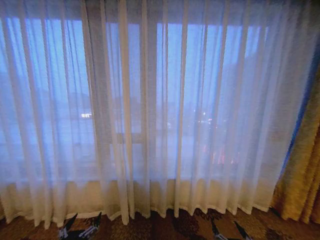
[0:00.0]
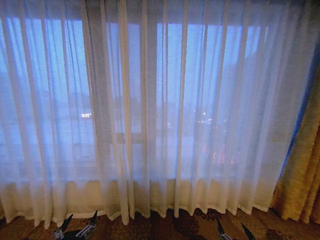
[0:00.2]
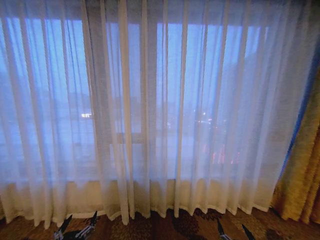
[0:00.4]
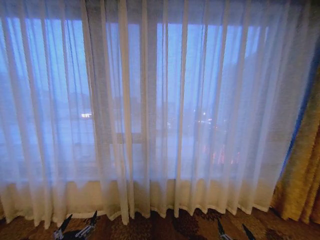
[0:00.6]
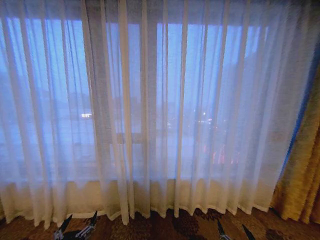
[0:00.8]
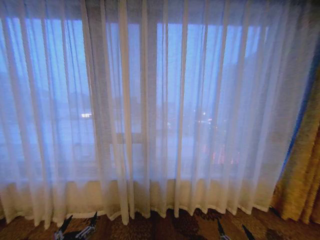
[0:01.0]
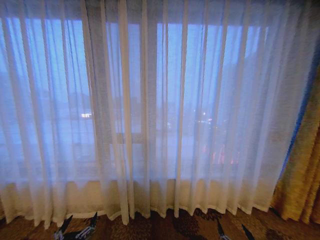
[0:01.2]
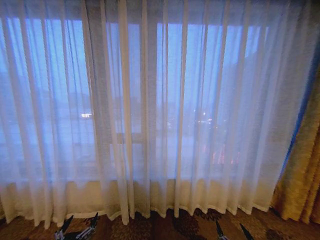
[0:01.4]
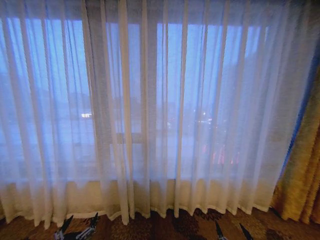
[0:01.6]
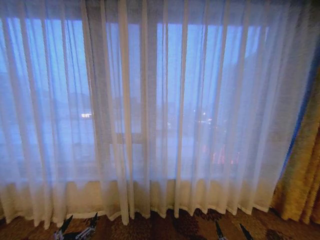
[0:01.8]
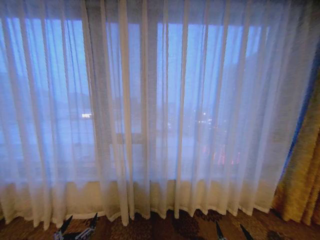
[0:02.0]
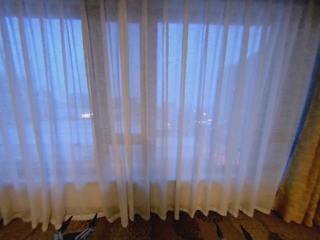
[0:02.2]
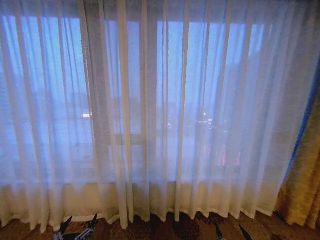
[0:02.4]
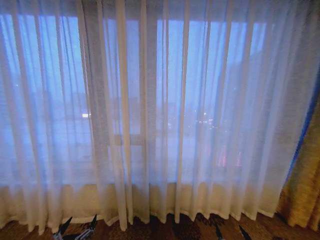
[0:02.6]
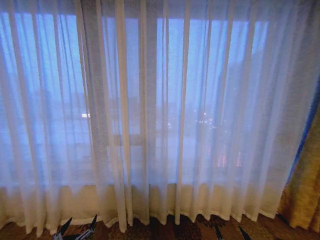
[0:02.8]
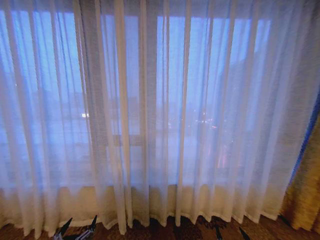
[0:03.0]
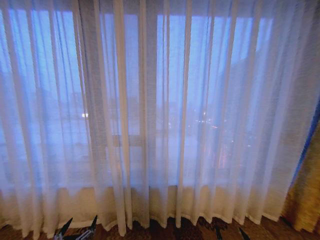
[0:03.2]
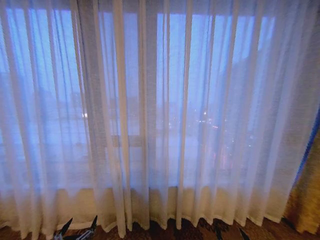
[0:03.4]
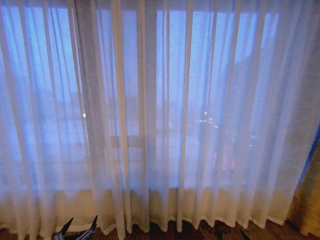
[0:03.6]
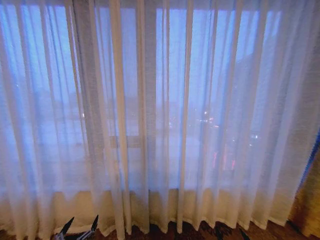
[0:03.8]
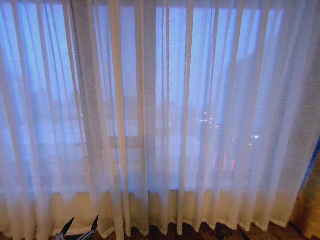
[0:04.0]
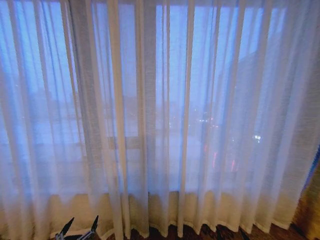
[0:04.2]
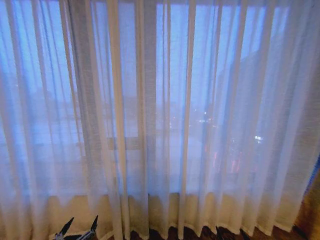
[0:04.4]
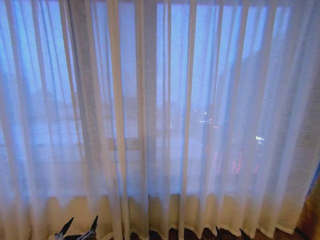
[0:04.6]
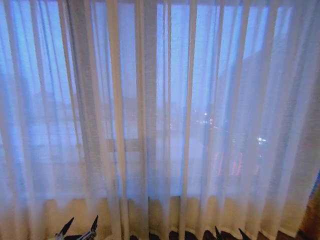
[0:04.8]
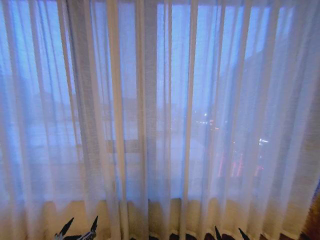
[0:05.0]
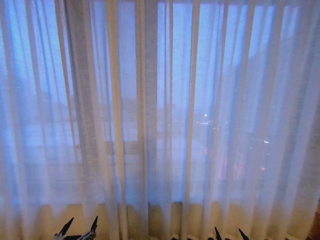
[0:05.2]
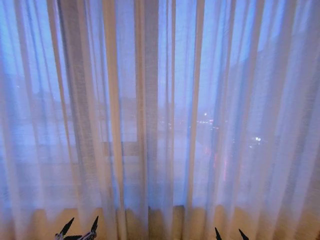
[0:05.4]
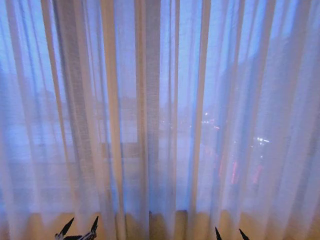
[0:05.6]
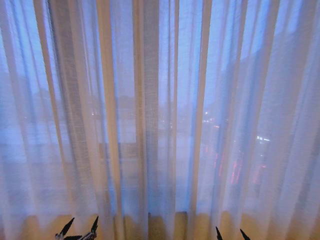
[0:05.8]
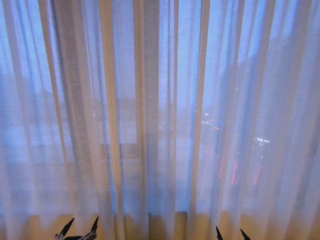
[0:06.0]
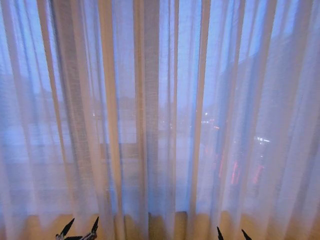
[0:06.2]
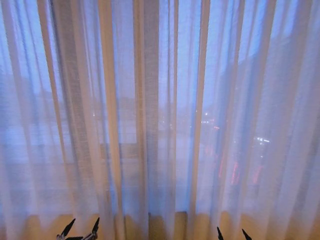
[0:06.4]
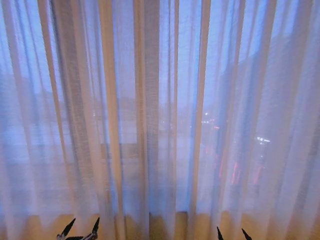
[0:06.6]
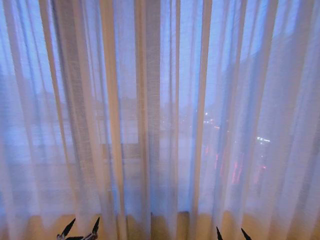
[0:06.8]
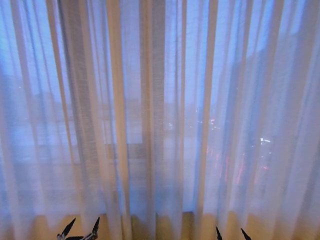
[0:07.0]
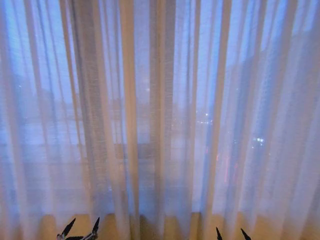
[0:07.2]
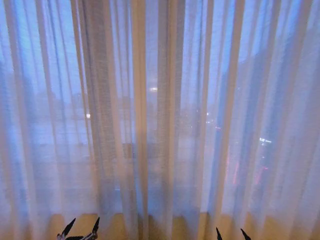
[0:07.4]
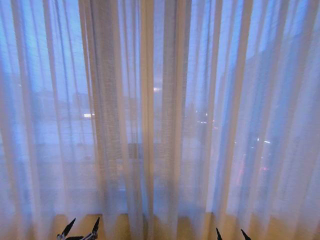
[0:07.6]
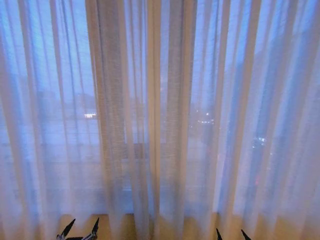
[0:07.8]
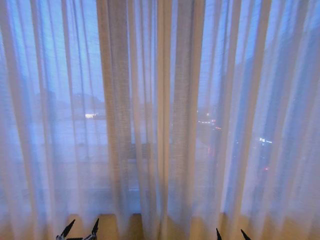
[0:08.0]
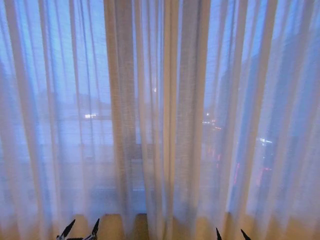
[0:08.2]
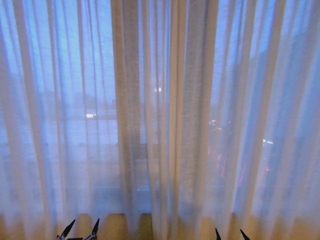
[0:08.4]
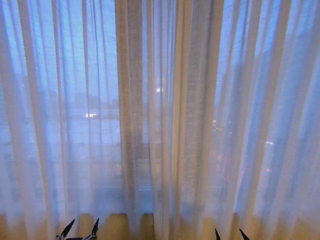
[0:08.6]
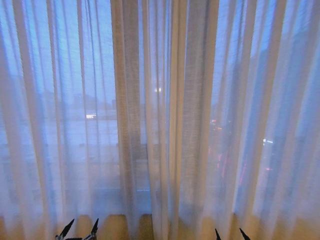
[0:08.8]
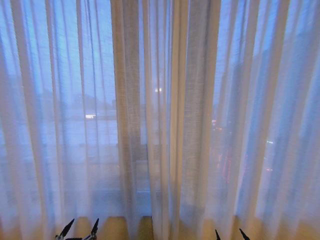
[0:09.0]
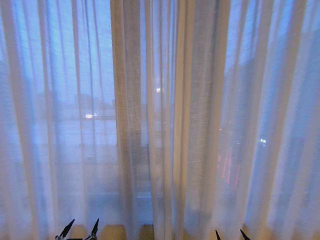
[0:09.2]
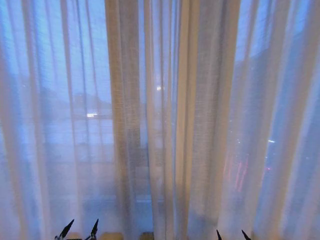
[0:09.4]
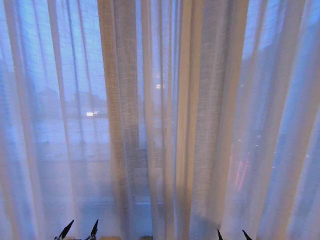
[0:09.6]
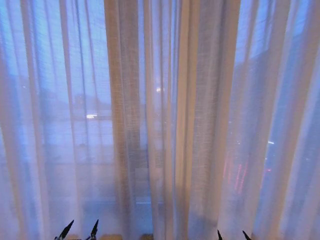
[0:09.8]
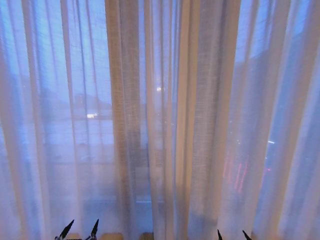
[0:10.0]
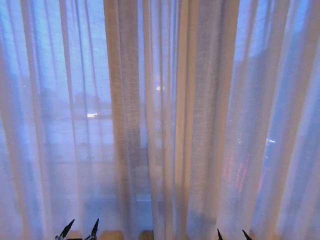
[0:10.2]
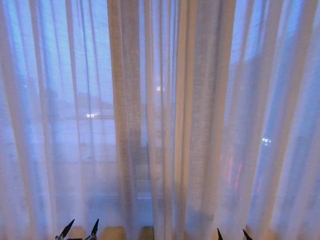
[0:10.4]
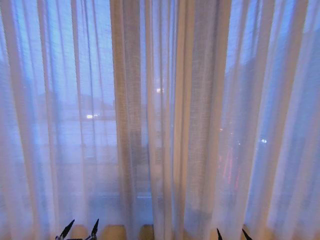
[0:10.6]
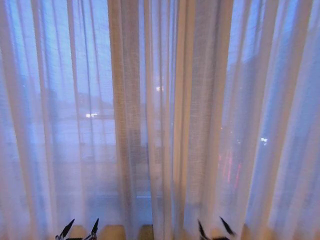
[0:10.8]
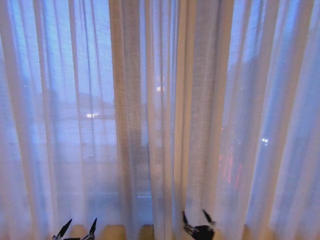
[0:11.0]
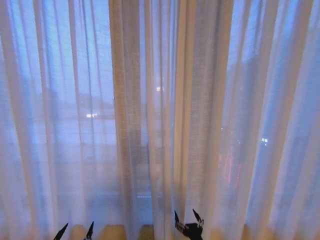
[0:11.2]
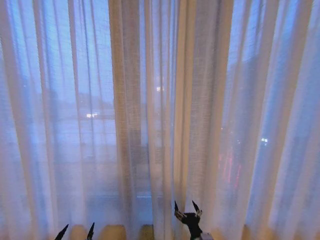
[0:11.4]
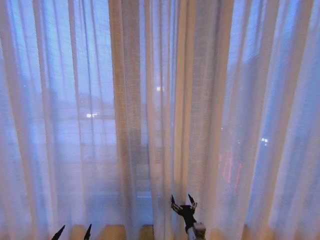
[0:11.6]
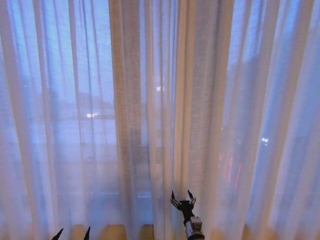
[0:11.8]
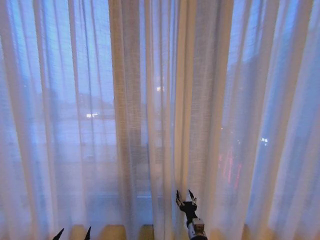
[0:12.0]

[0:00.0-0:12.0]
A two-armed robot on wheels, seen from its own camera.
Task of the whole recording: Open the curtains by pulling them apart, changing their state from closed to fully open.
0:07.6 to 0:09.0: There are only small adjustments of the grippers.
0:09.0 to 0:10.4: The two grippers keep their place.
0:10.4 to 0:12.0: The right gripper heads forward and to the left, covering some 25 cm.

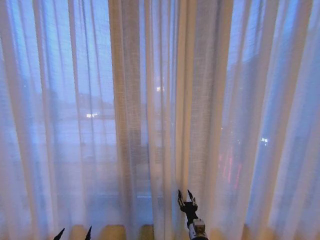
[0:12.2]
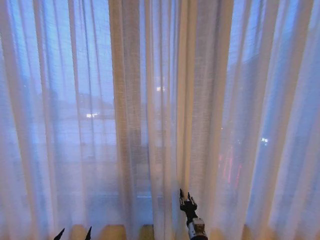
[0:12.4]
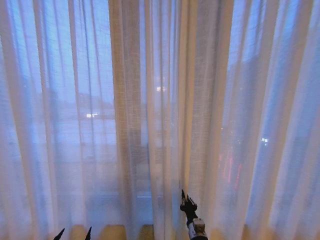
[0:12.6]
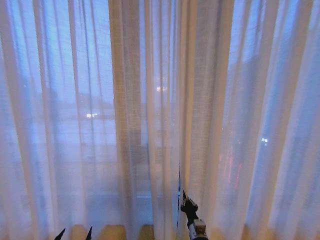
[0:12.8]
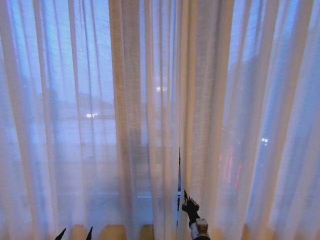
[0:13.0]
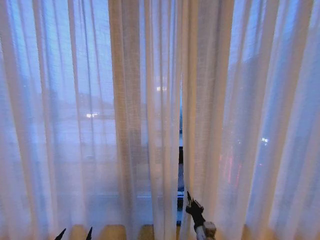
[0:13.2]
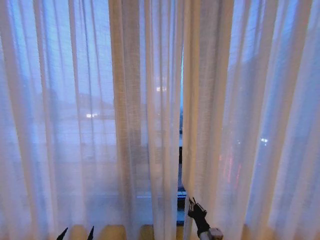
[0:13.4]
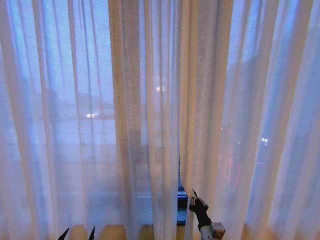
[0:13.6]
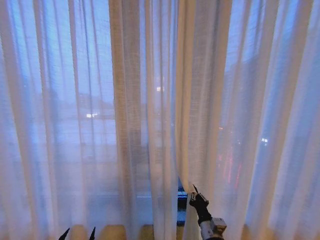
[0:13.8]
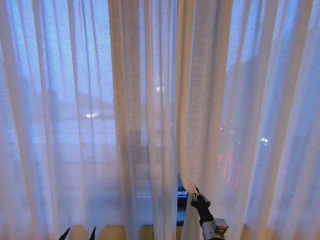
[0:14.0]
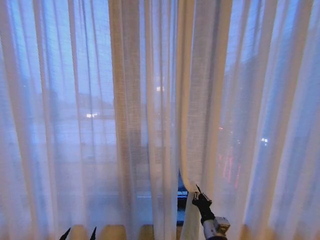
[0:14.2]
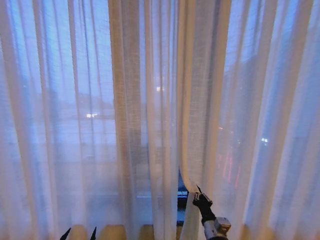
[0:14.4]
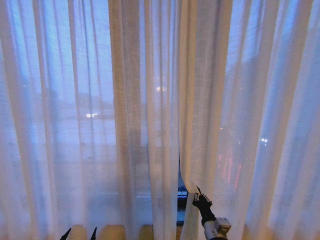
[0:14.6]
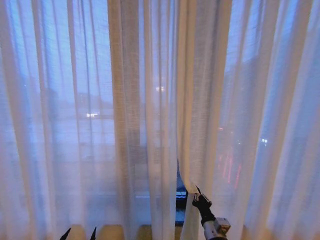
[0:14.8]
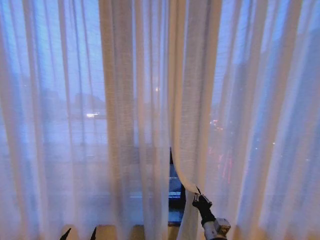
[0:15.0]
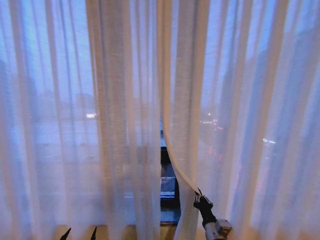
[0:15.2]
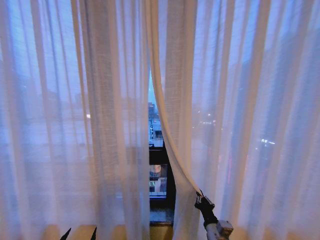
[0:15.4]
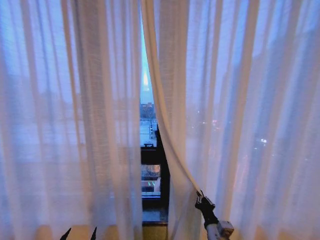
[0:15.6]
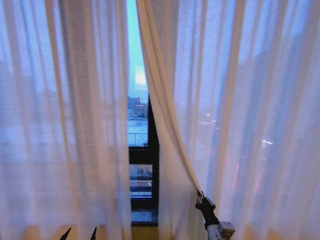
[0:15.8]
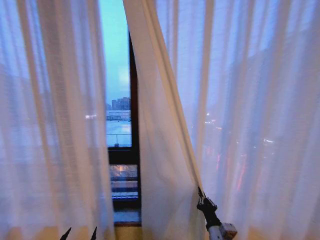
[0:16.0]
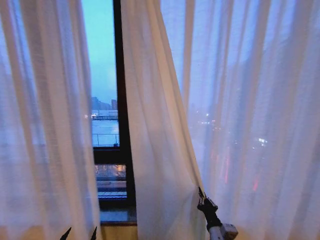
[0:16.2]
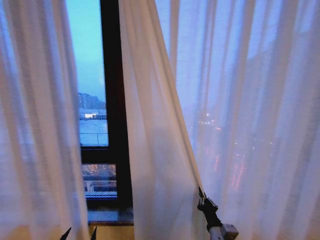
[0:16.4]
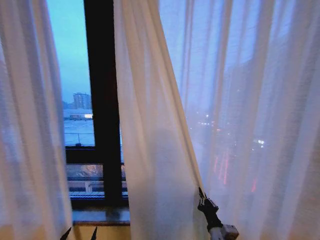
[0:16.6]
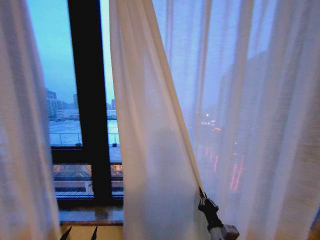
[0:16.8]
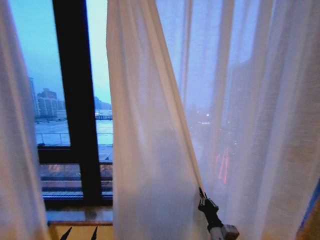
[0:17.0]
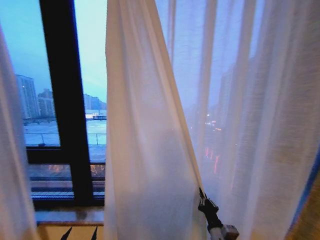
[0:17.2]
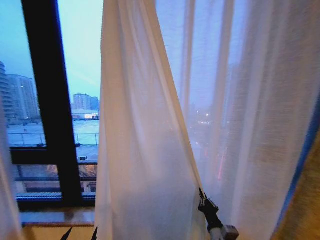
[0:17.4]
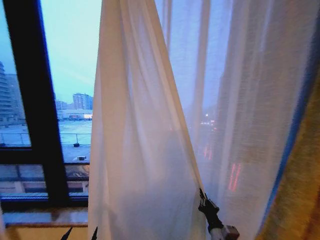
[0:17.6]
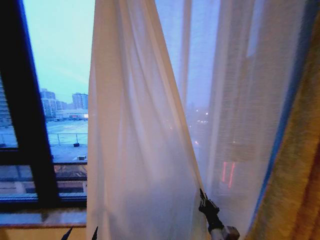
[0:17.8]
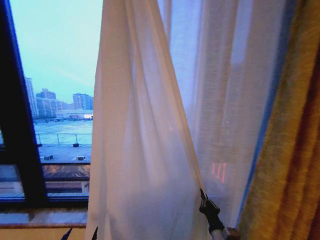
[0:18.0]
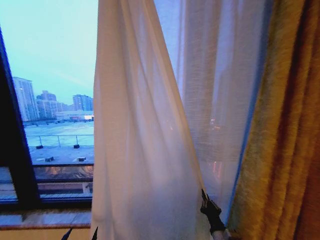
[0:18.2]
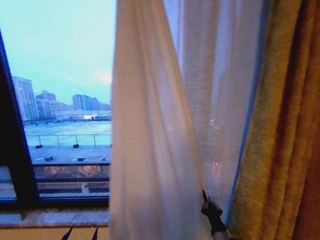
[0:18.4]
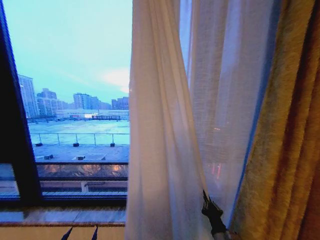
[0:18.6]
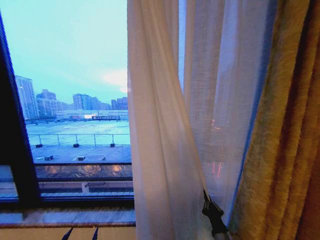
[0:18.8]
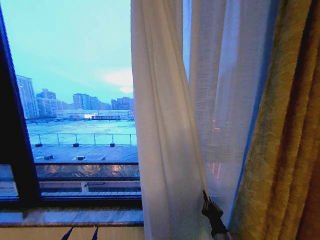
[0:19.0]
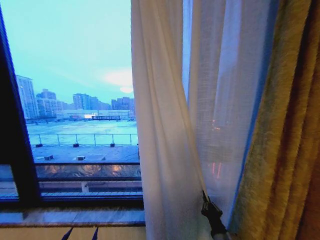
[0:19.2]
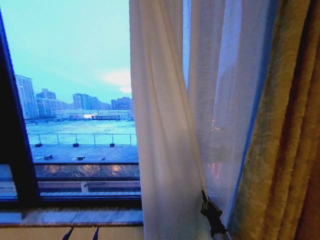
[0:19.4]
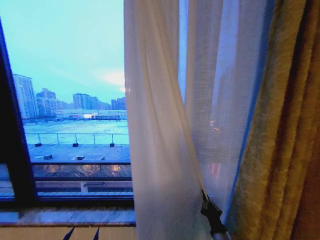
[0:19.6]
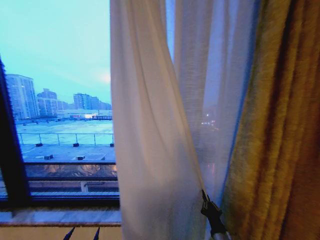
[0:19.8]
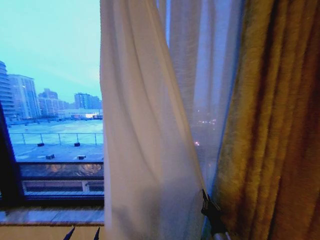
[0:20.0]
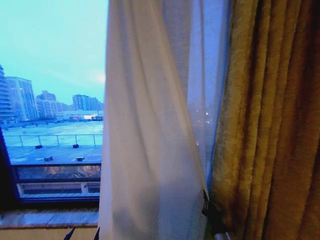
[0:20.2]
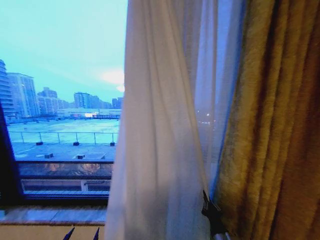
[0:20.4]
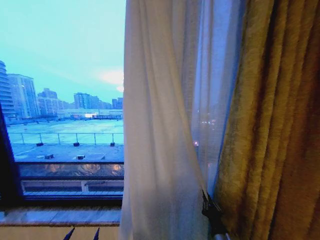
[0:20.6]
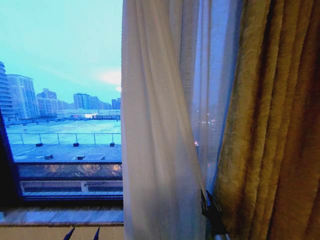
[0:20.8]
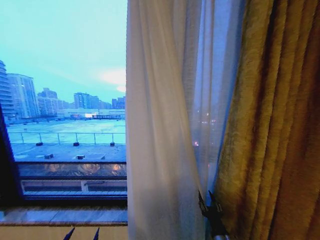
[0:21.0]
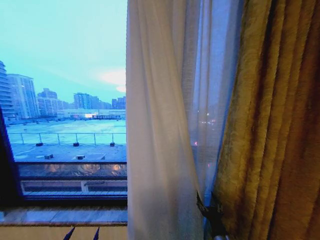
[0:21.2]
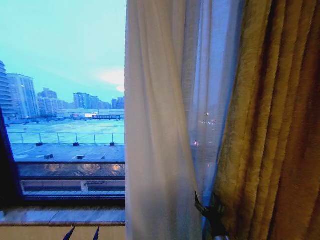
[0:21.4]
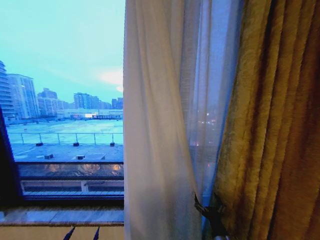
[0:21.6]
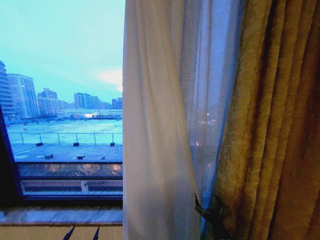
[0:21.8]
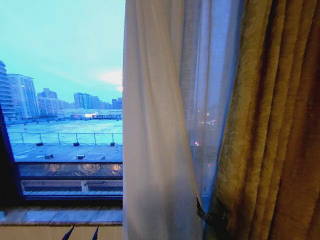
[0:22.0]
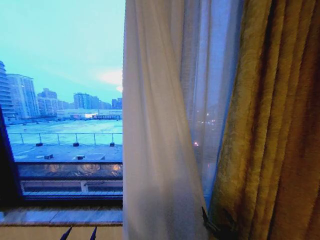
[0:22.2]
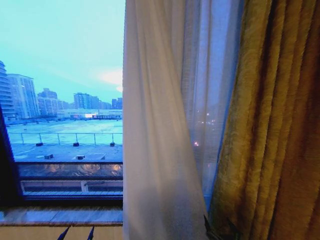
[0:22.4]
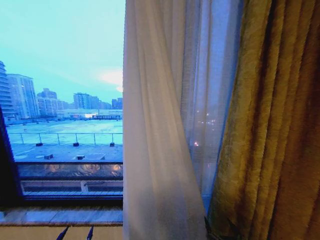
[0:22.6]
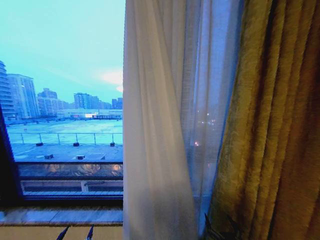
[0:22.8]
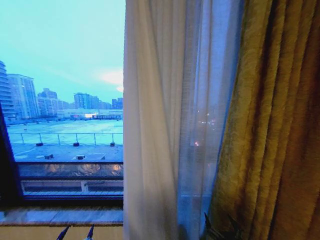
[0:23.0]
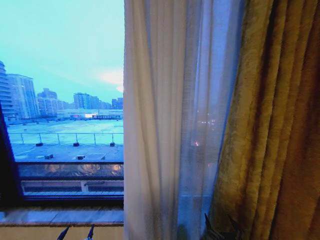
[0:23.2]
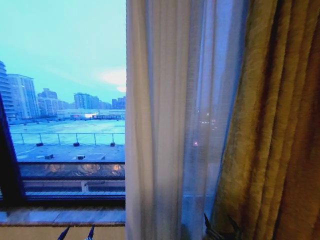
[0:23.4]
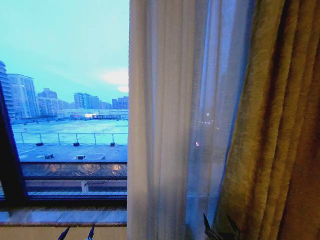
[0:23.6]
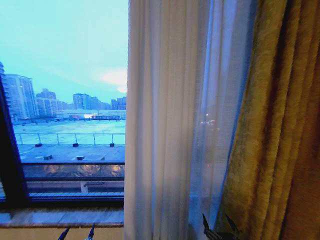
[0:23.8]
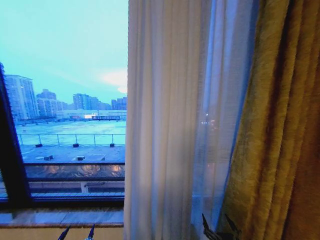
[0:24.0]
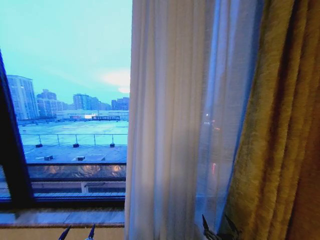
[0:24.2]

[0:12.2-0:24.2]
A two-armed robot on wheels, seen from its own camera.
Task of the whole recording: Open the curtains by pulling them apart, changing their state from closed to fully open.
0:12.2 to 0:13.8: The right gripper shifts about 5 cm upward, and closes.
0:19.8 to 0:21.2: The right gripper opens.
0:21.2 to 0:22.6: The right gripper heads backward, covering about 10 cm.
